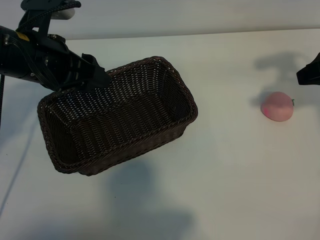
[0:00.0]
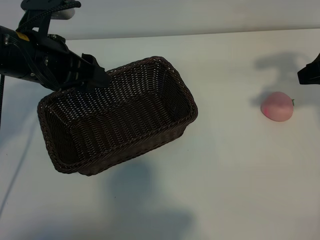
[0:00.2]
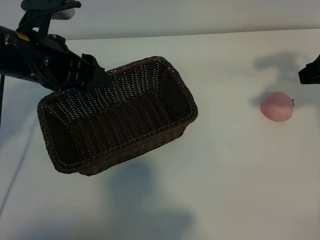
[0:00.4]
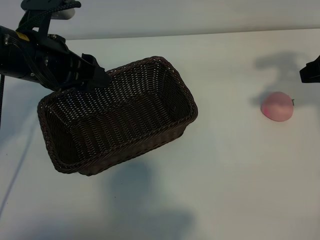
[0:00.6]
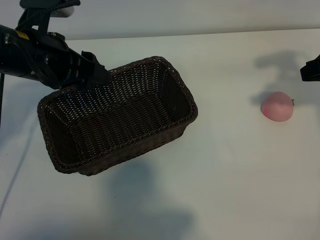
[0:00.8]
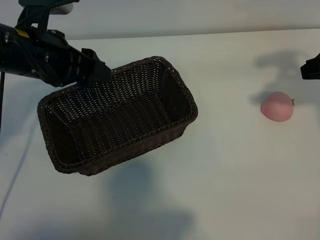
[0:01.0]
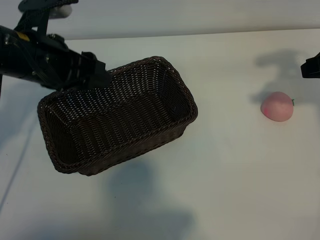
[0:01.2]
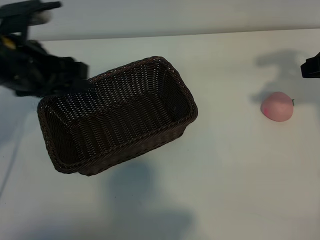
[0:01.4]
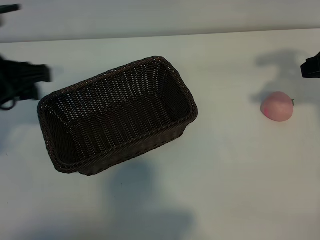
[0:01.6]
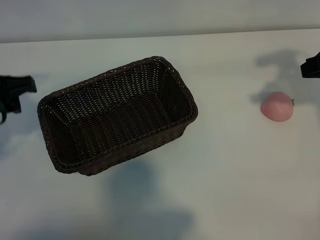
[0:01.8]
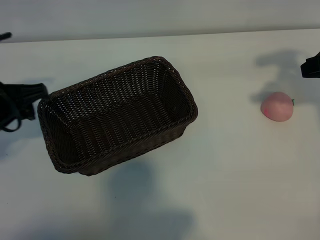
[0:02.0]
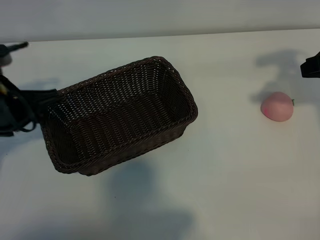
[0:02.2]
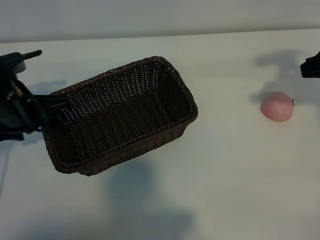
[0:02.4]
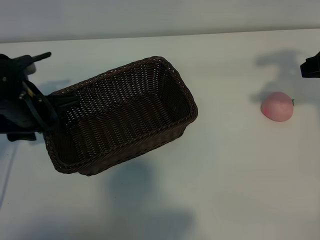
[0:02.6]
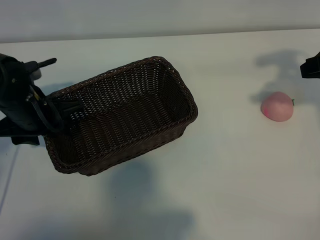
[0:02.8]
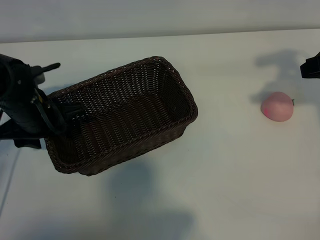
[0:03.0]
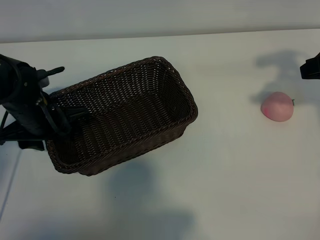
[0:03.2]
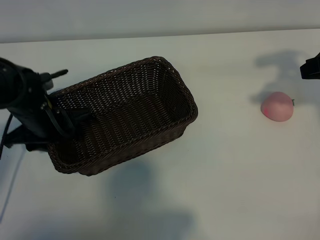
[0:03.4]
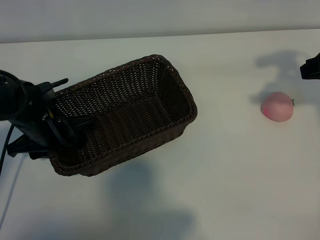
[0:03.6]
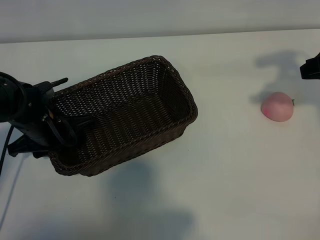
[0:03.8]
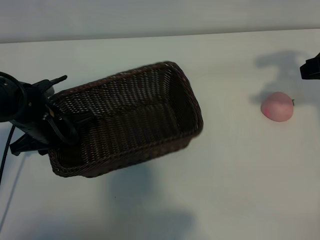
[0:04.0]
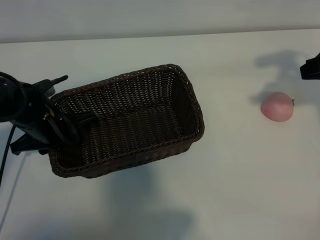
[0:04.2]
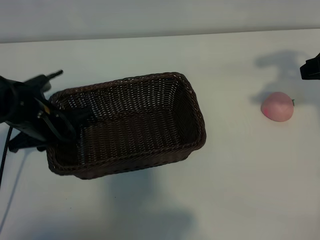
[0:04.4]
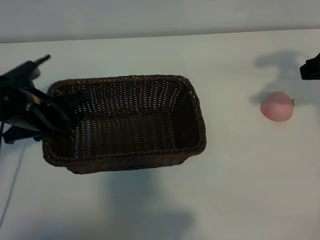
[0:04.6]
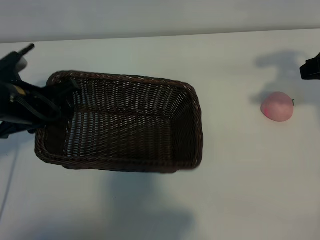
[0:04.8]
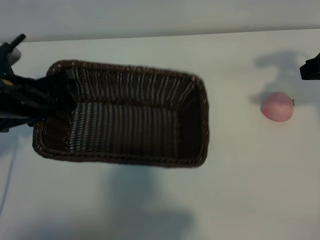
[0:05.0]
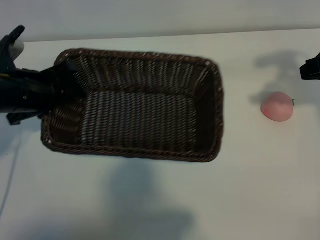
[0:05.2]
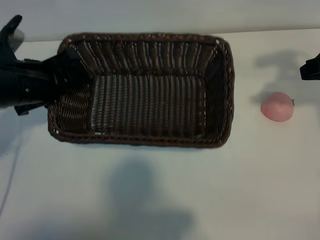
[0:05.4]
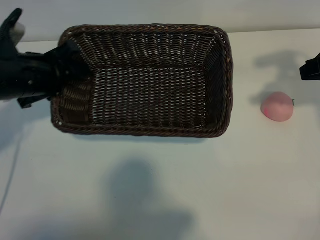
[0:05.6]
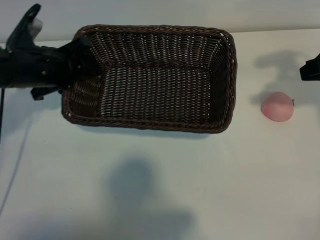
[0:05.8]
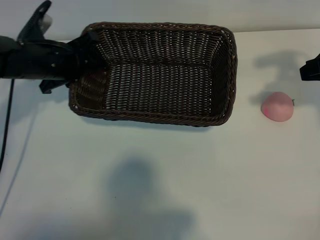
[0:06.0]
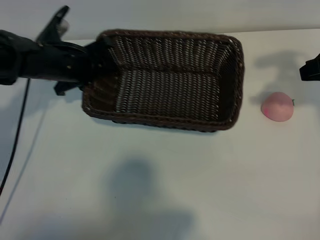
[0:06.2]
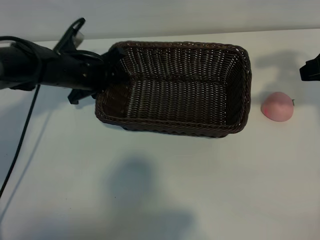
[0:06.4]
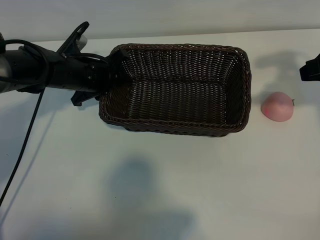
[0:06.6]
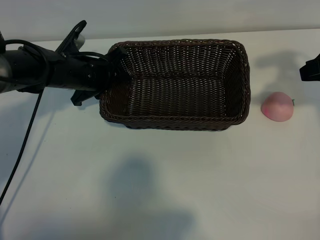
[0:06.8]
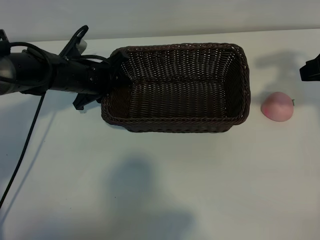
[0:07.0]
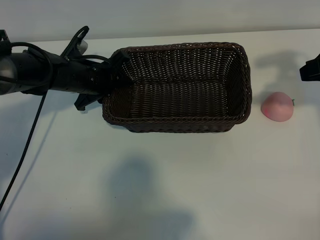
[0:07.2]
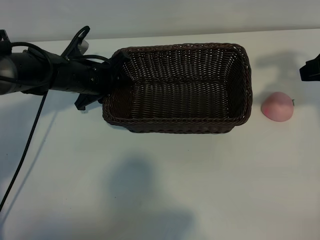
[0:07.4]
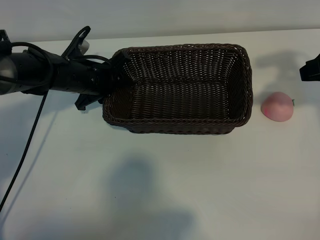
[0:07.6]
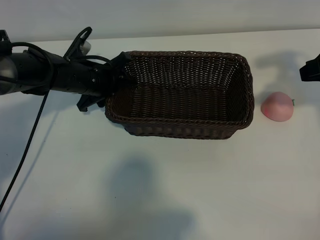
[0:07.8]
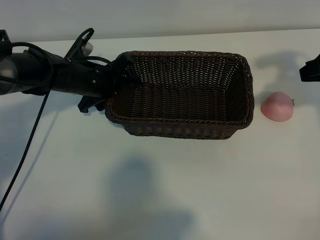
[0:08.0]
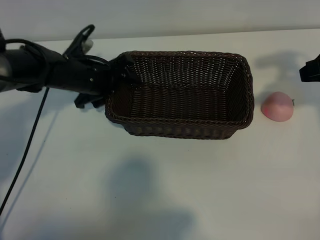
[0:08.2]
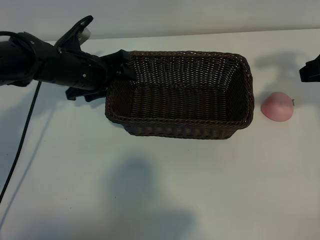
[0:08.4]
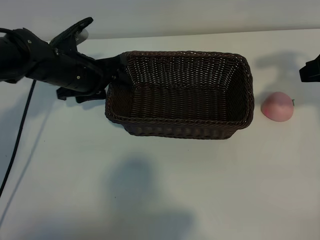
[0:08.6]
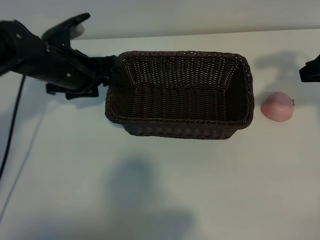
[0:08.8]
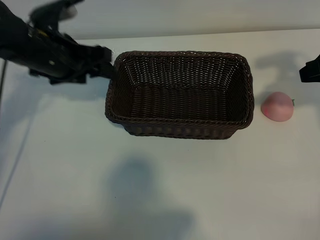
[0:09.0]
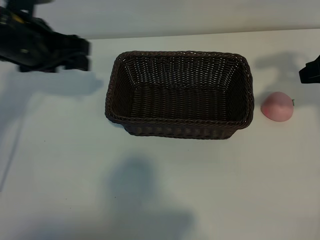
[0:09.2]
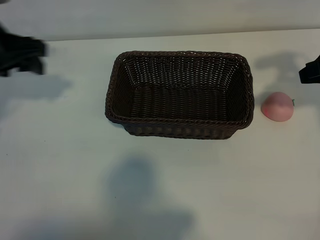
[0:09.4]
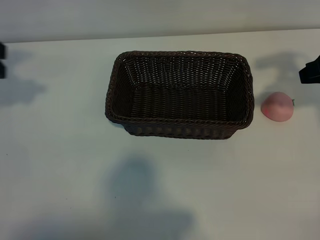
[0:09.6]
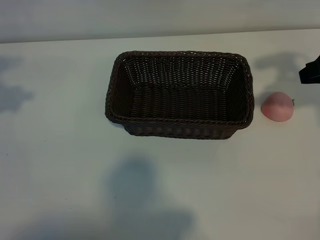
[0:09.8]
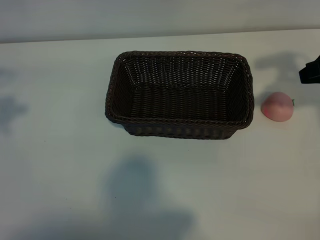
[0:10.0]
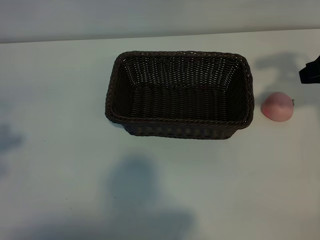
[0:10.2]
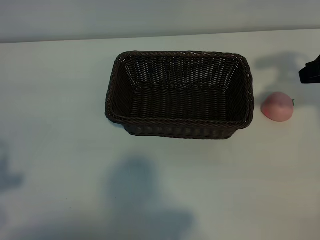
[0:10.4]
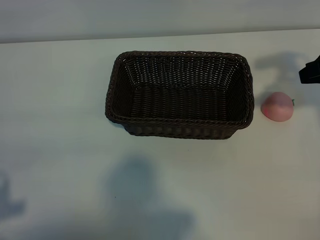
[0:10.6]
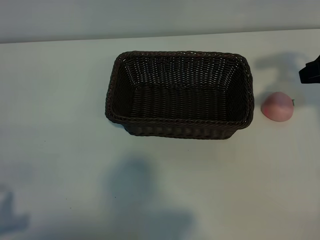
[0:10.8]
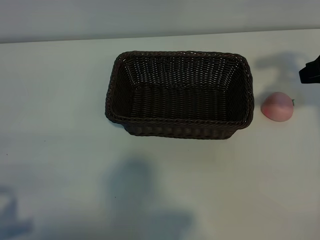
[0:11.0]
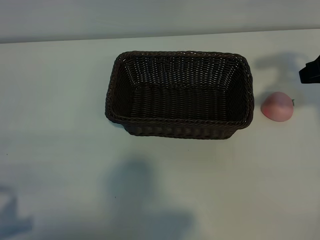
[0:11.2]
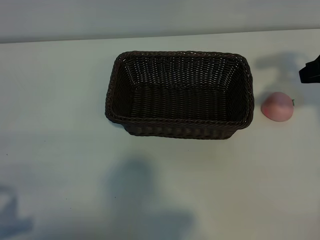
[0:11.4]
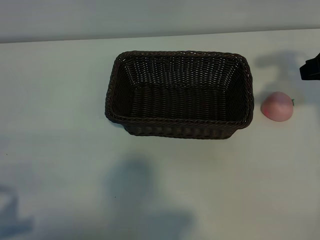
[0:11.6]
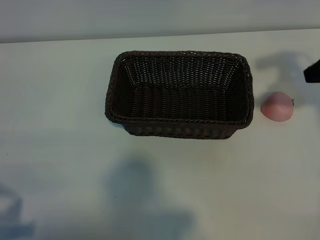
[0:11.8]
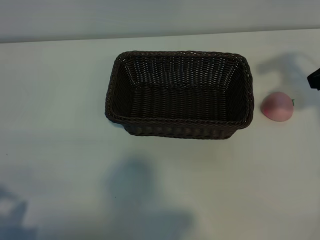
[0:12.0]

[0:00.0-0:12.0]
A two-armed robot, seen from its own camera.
Task of the whole recording: pick up the peach and put it into the basket.
Step, 0:01.0 to 0:04.0: Grasp the basket with left gripper.
Step, 0:04.2 to 0:08.6: Place the basket in the center of view with left gripper.

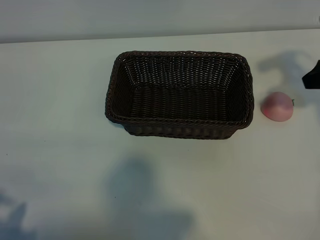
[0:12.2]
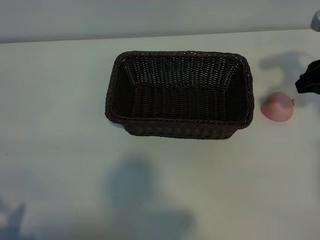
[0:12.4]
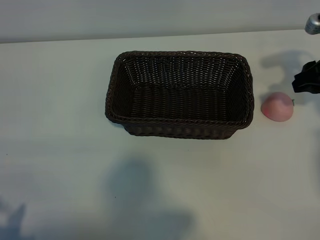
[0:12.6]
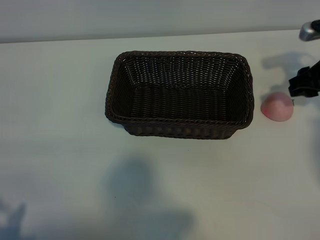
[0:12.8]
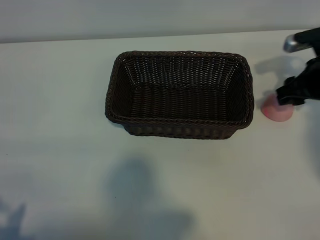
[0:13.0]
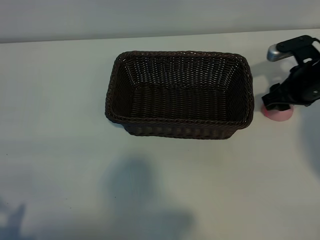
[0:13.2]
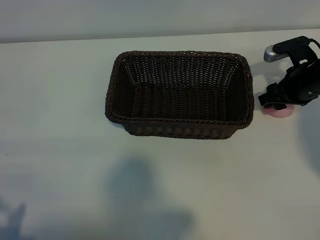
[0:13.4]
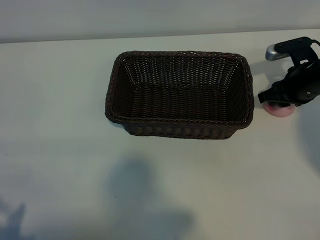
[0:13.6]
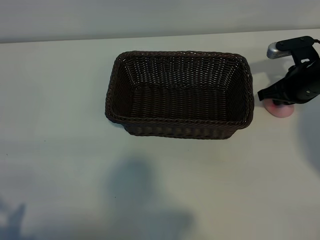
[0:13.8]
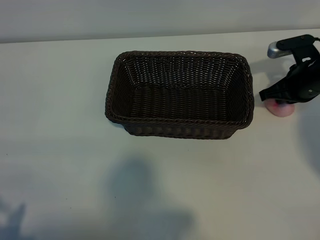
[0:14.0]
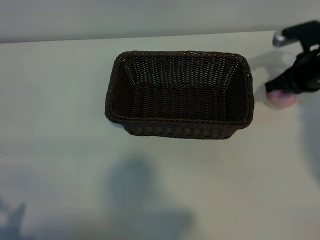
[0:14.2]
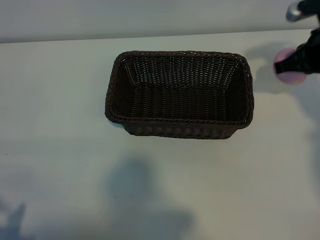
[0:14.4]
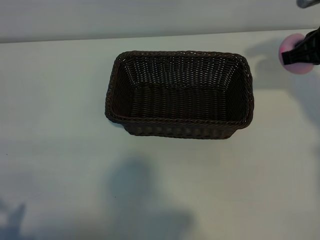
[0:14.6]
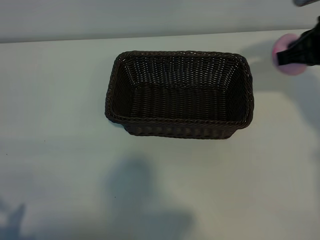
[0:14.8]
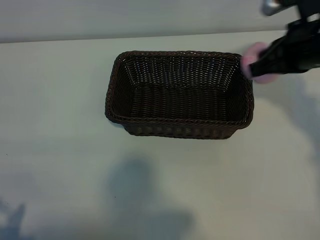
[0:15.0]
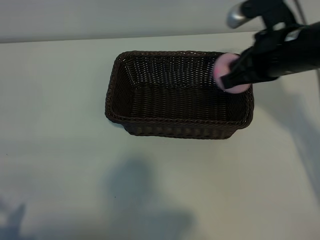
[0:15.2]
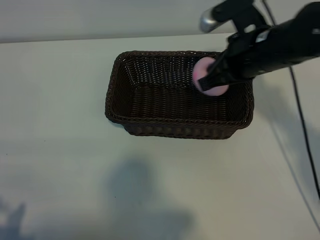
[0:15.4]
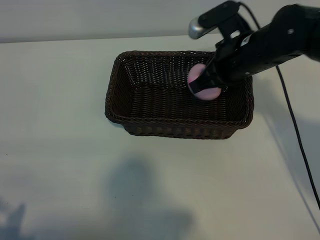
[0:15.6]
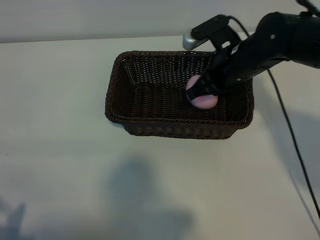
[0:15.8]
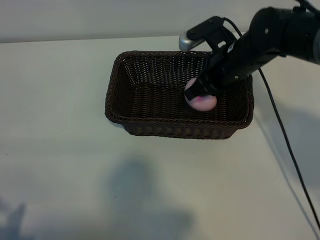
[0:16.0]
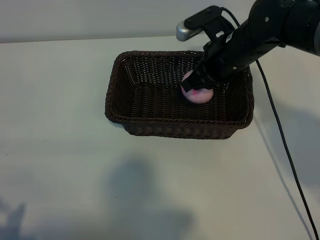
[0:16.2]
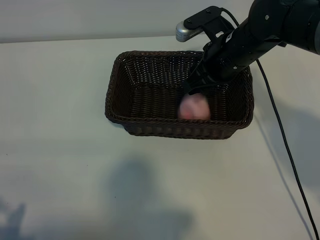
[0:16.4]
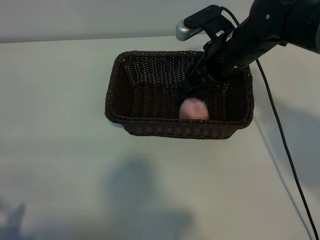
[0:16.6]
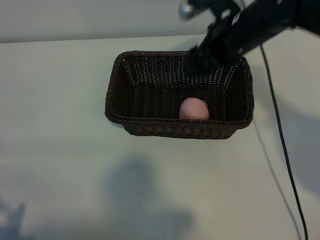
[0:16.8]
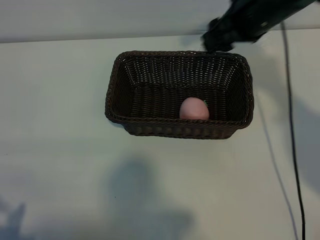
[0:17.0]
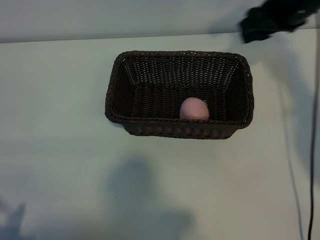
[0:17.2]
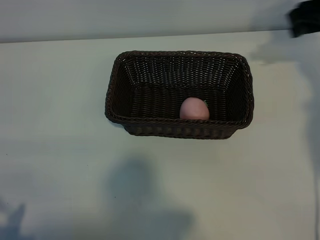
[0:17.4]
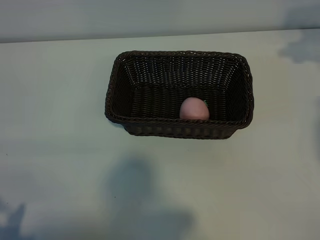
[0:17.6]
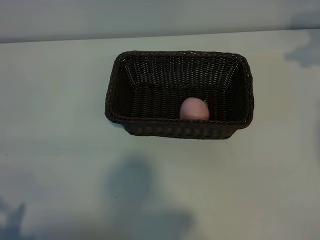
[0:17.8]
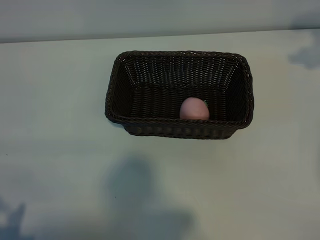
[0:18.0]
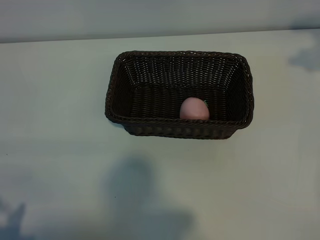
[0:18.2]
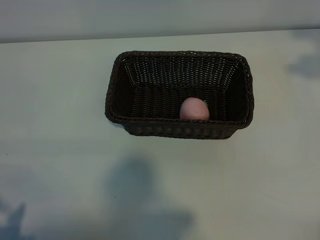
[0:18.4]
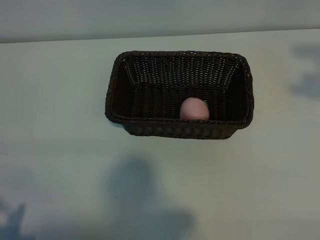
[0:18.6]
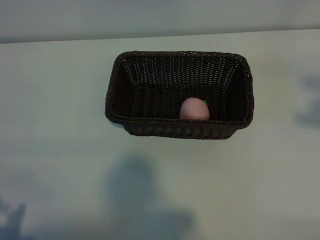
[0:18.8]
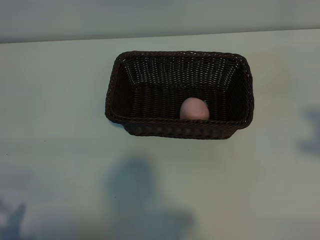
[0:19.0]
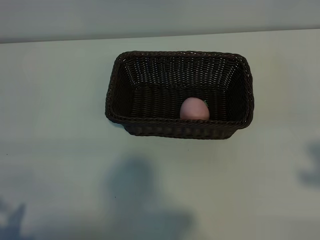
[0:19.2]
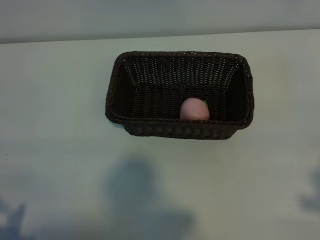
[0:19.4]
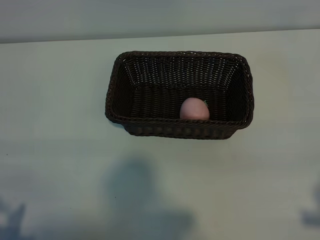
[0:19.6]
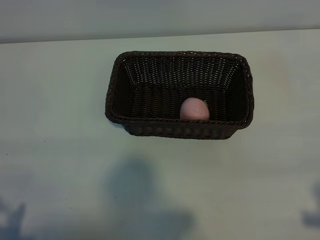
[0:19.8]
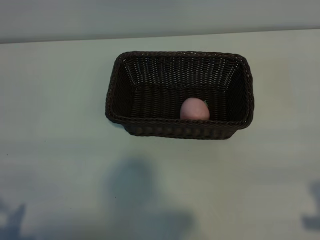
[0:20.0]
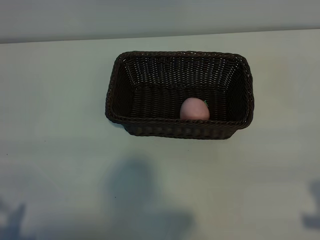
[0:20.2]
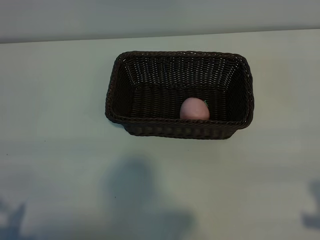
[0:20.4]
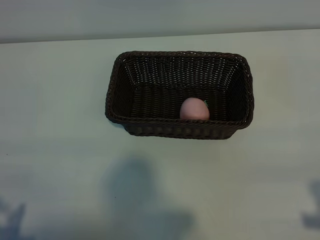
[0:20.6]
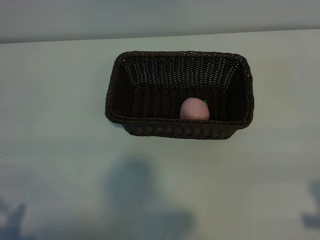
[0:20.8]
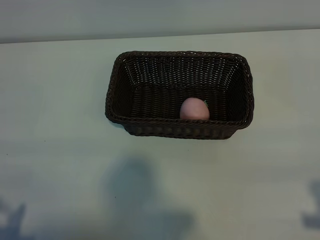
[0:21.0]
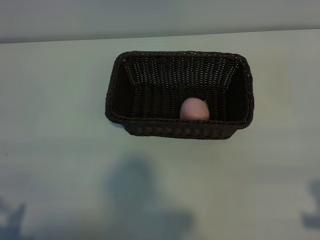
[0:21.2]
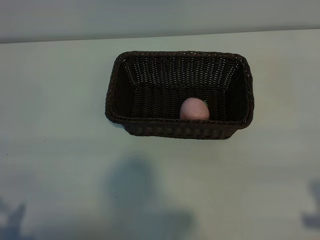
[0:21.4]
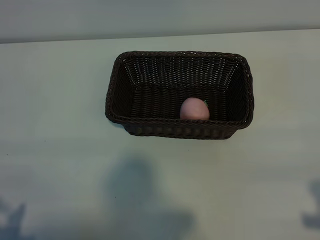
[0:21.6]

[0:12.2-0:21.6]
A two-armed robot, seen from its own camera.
Task of the whole recording: pick up the peach and put it into the basket.
Step, 0:14.0 to 0:16.4: Place the peach in the basket with right gripper.
